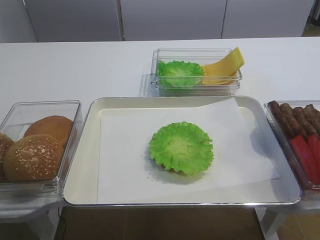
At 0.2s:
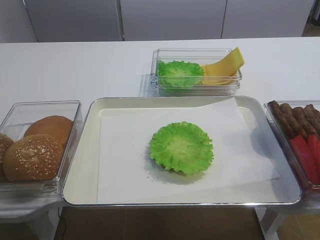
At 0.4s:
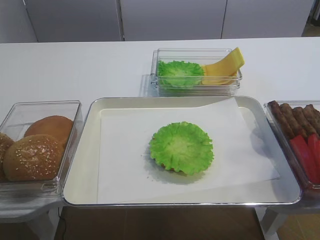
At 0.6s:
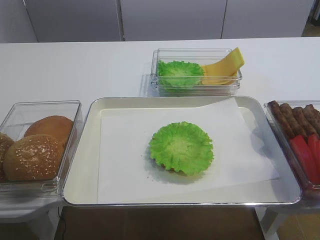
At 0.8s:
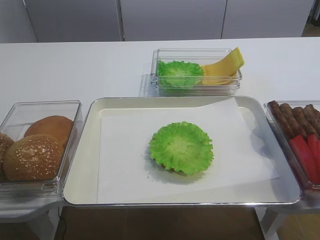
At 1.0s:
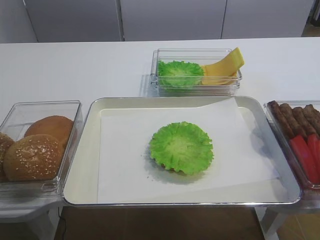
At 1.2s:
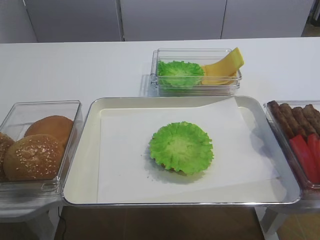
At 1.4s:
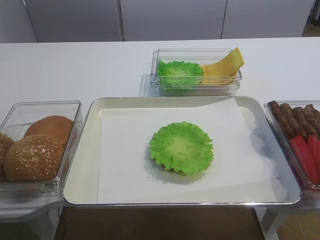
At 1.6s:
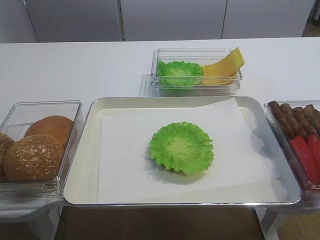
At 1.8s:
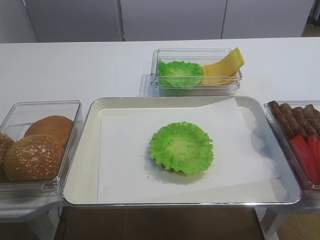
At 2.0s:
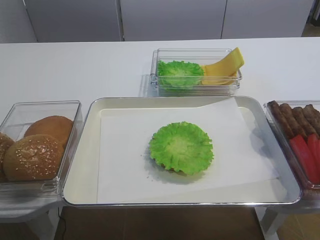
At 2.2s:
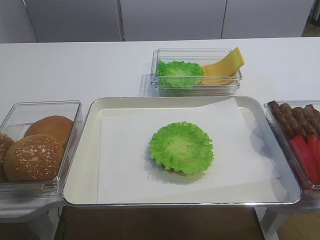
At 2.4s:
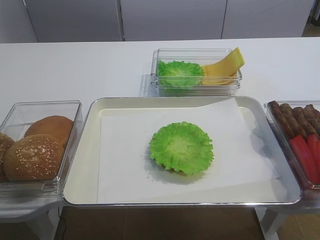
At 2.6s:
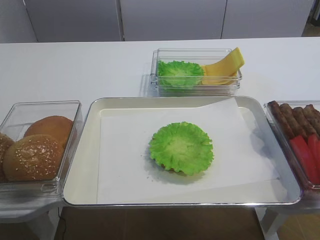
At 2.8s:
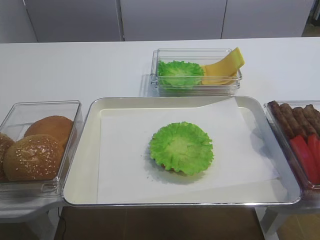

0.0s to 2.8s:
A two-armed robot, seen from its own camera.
1.4s to 2.8s: Both grippers stay about where they are.

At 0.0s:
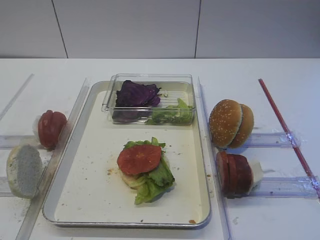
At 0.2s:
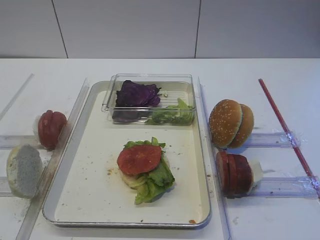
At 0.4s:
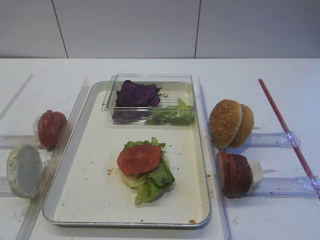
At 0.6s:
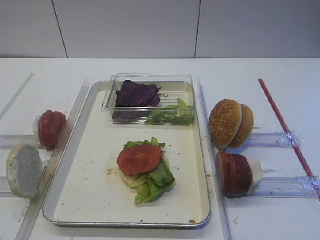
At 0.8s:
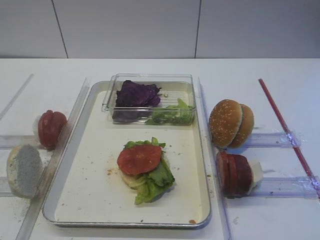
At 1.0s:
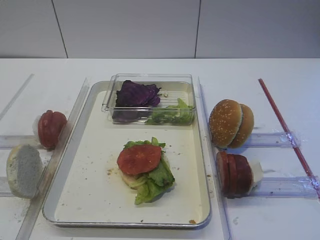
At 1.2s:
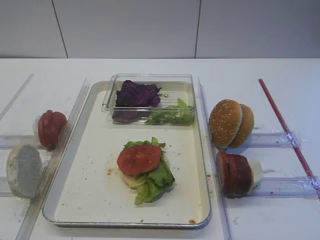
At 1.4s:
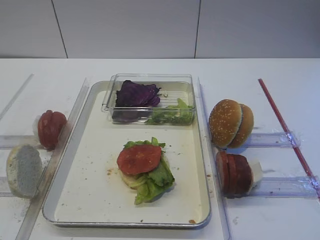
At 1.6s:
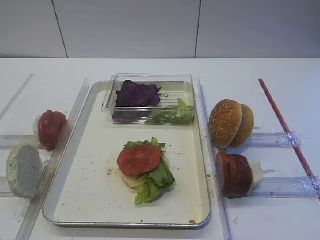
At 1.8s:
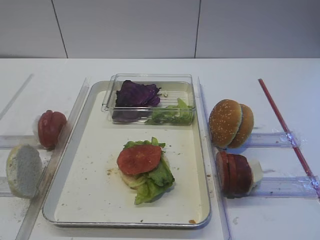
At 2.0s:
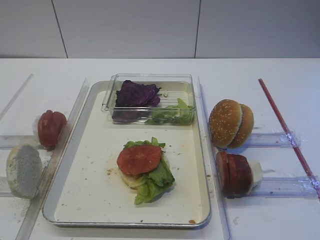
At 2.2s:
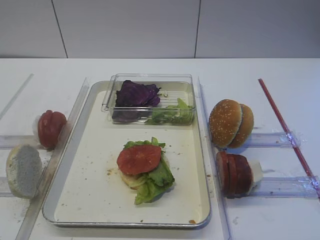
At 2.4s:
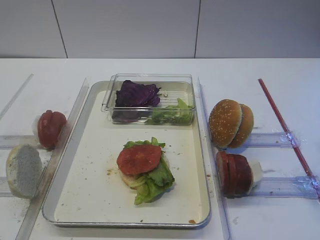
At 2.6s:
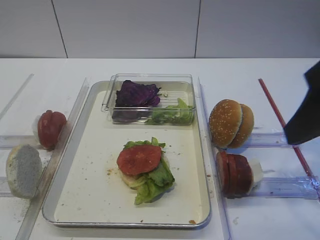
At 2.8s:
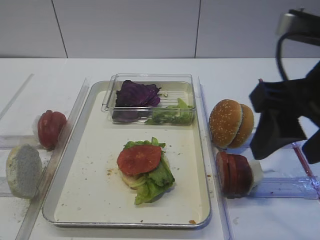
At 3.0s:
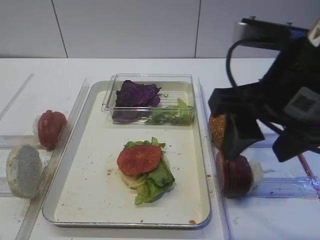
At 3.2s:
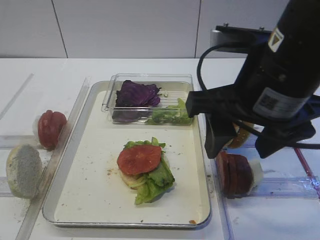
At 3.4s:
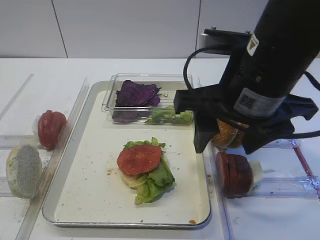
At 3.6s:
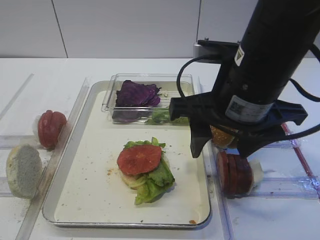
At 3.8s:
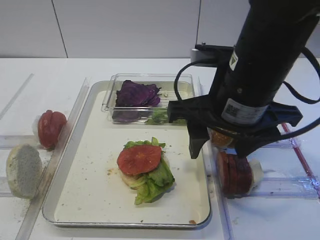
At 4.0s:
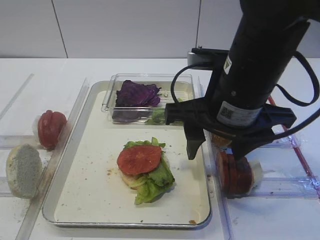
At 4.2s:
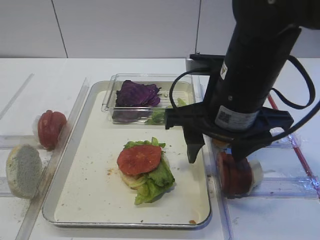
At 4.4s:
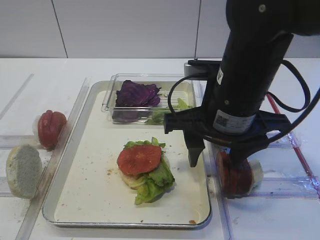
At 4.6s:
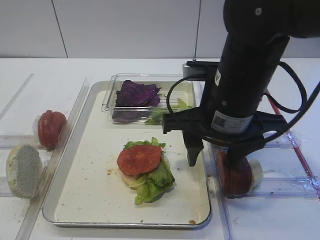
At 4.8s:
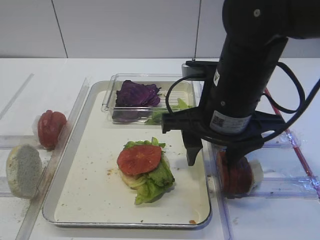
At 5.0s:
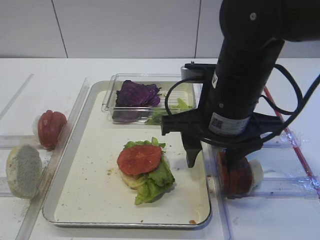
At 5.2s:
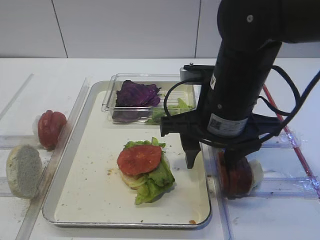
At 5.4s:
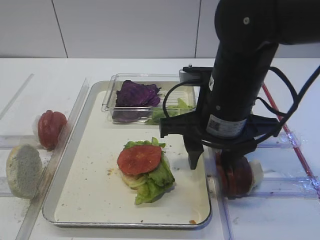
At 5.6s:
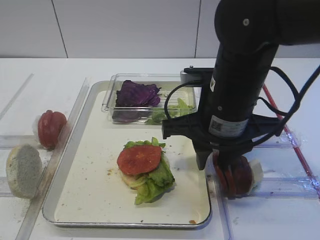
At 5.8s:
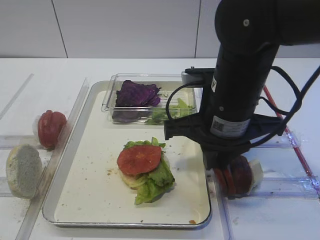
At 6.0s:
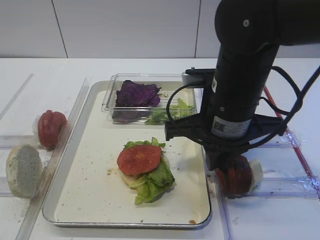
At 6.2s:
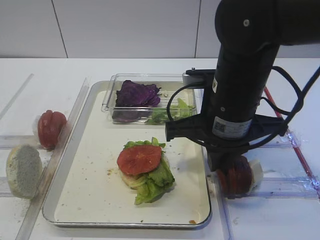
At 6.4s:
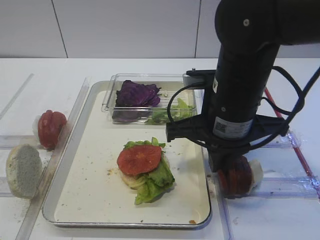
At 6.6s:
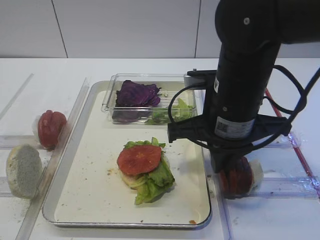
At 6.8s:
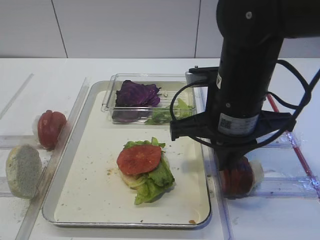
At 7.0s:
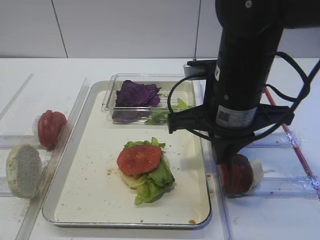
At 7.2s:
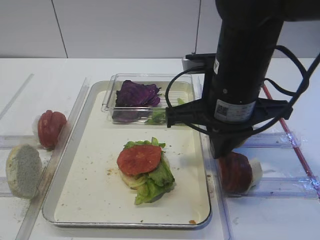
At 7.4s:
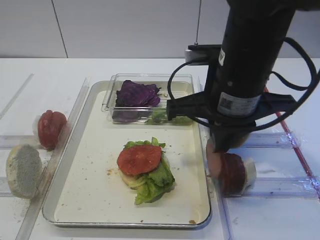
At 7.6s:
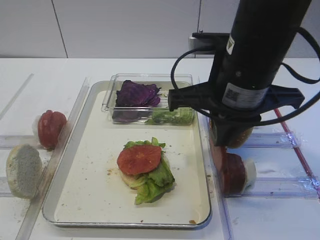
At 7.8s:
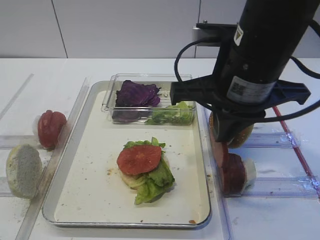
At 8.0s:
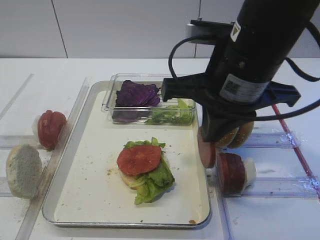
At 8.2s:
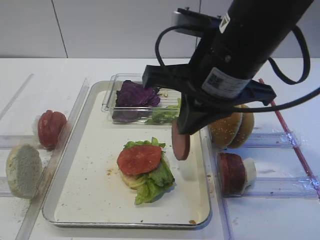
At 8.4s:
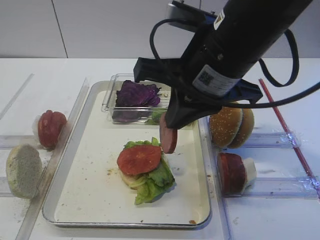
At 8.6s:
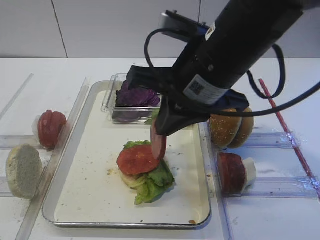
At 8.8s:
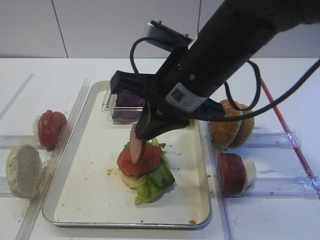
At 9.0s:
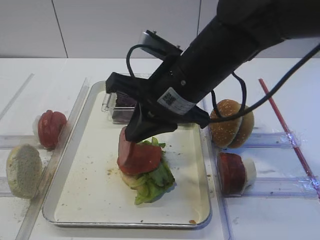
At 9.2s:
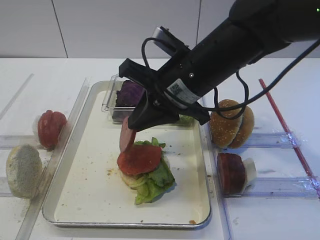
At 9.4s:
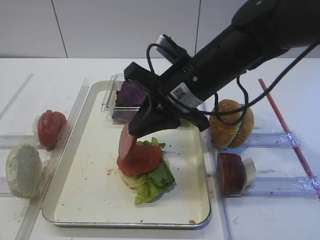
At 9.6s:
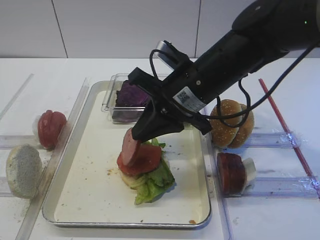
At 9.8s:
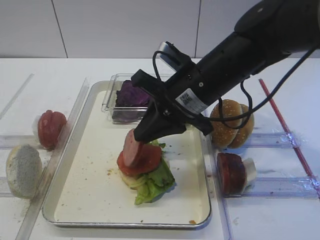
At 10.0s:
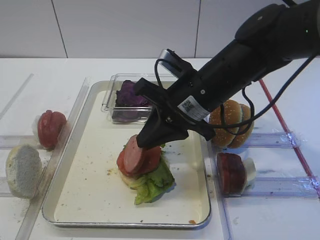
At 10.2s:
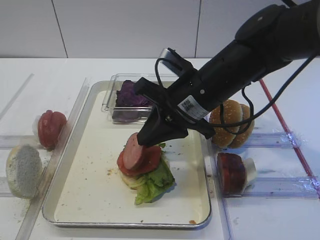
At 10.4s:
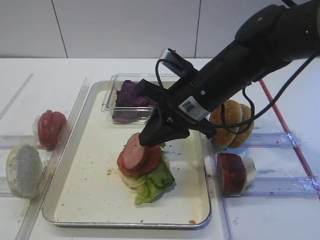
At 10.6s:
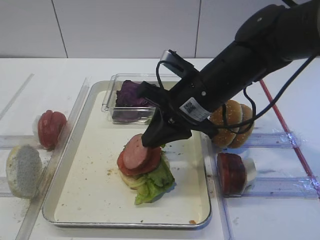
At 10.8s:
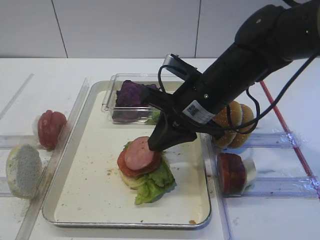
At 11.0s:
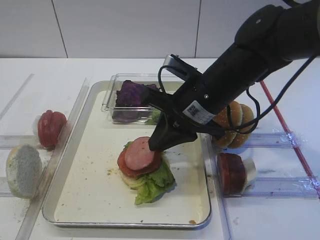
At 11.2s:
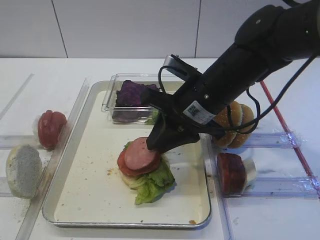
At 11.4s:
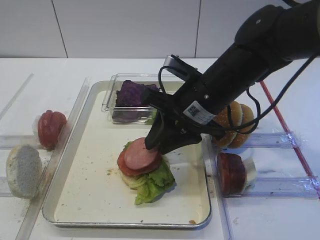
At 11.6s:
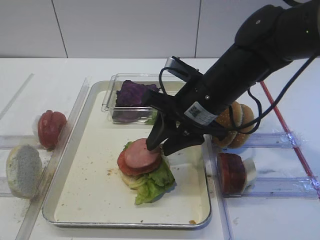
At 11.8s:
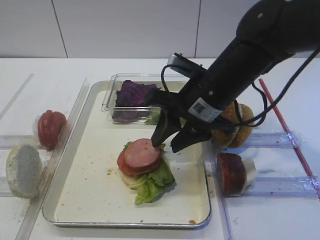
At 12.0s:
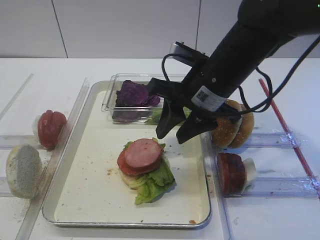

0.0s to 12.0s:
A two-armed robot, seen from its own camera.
Step, 0.0s to 7.4s: Pick up the cutlet with the right gripper.
Step, 7.6s to 11.8s: Place the cutlet on the tomato slice with the right gripper.
1.6s to 3.0s: The right gripper is displaced forward and to the left by about 20 cm.
3.0s to 4.4s: The right gripper heads downward, forward and to the left, covering some 10 cm.
4.4s to 6.0s: The right gripper closes up.
6.0s to 7.6s: The right gripper travels upward by about 5 cm.
7.6s to 9.0s: The right gripper moves to the left, approximately 5 cm.
9.0s to 10.4s: The right gripper ends up approximately 5 cm from where it was.
10.4s to 12.0s: The right gripper opens.

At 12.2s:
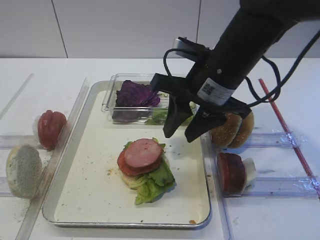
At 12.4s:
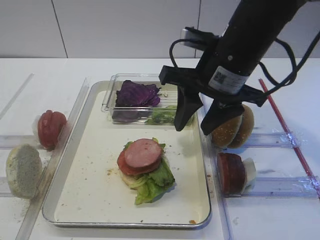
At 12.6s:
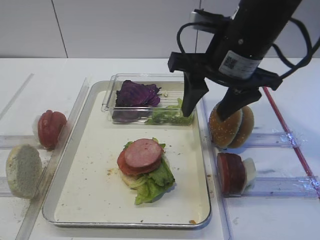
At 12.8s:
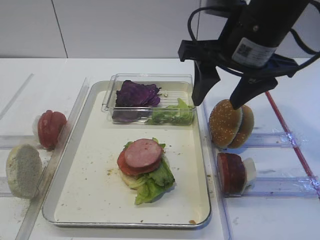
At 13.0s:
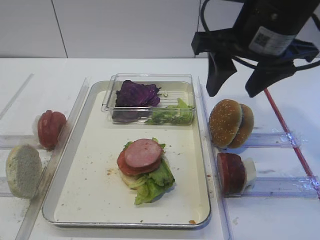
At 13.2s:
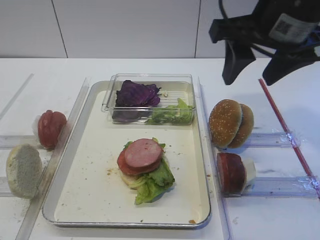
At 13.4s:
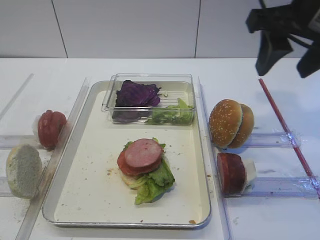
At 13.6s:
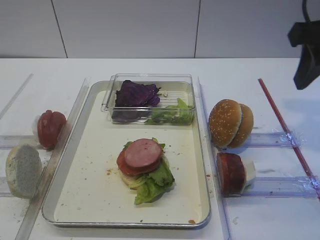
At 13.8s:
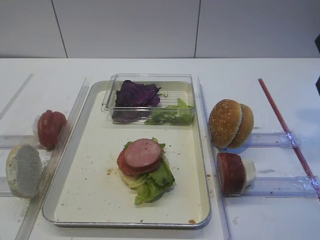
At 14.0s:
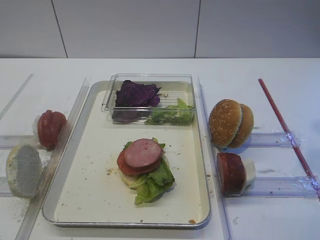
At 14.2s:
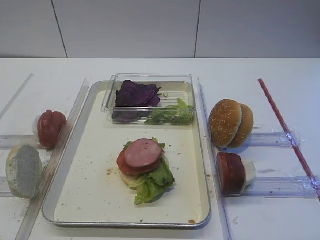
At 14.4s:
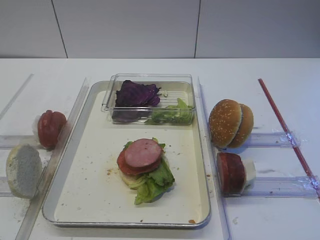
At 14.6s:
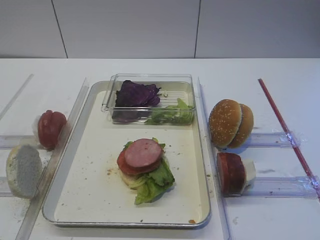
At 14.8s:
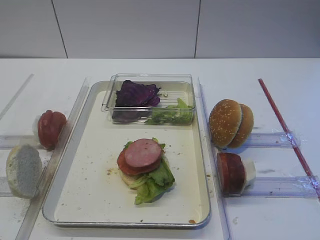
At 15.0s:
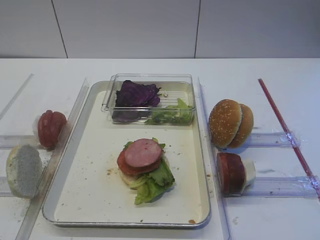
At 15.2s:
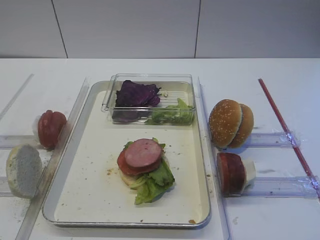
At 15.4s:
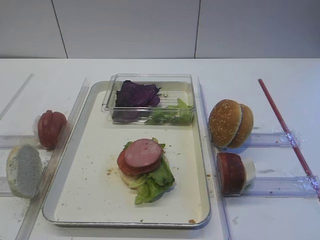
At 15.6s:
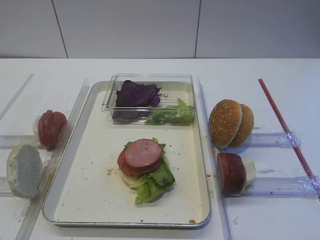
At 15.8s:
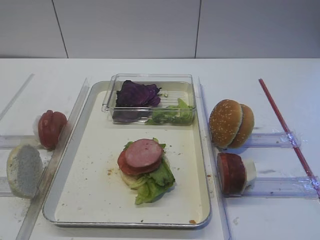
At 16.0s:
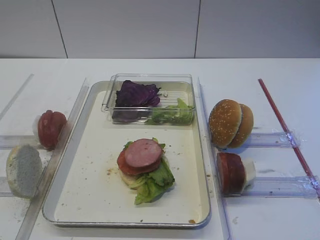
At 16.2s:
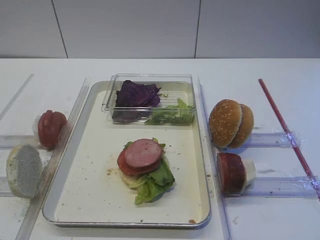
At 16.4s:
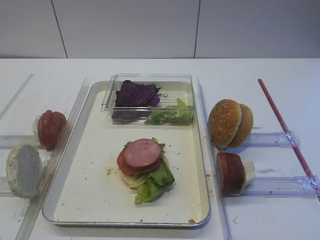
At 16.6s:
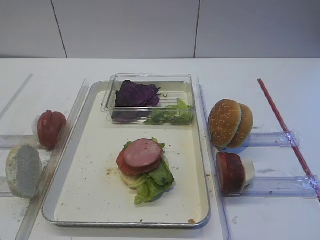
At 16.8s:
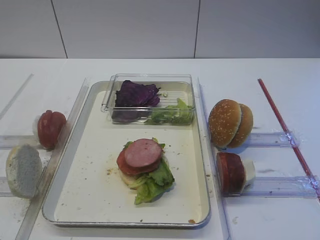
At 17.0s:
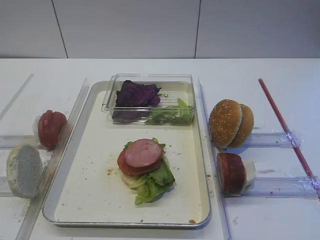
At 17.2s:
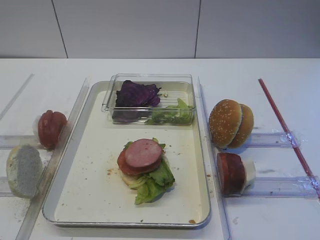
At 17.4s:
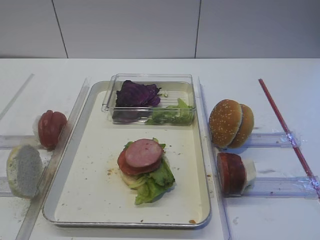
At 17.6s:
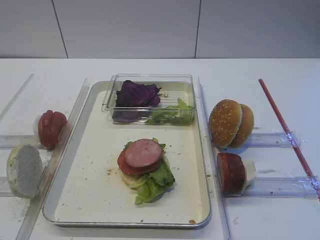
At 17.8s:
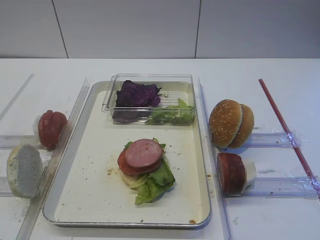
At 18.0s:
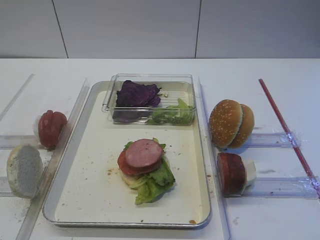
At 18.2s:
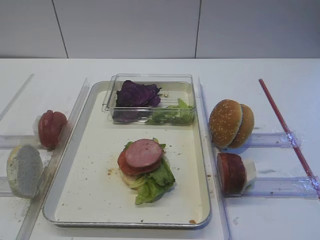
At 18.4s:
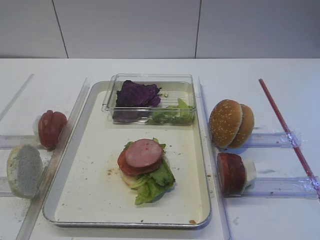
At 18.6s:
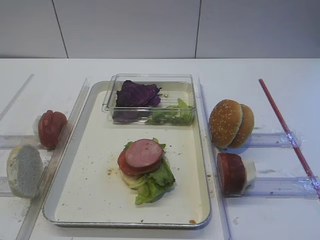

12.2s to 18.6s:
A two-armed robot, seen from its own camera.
12.2s to 13.8s: The right gripper is displaced to the right, upward and backward by approximately 20 cm.
17.0s to 18.6s: Neither gripper changes place.

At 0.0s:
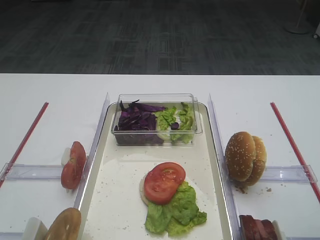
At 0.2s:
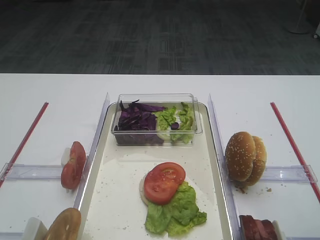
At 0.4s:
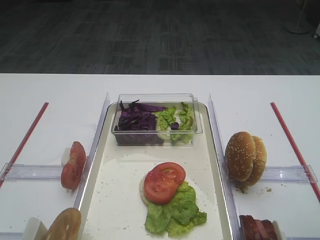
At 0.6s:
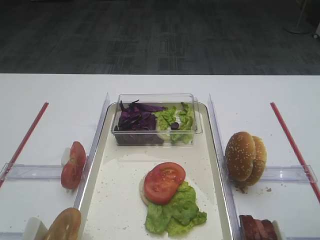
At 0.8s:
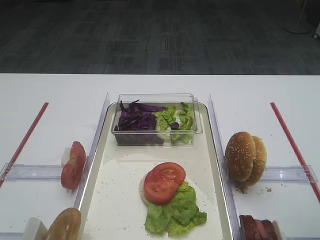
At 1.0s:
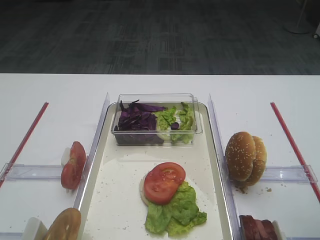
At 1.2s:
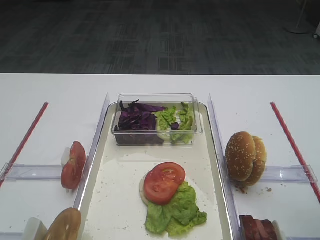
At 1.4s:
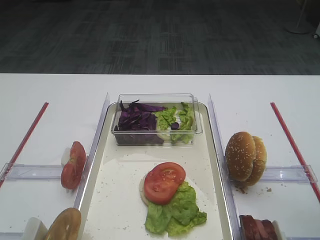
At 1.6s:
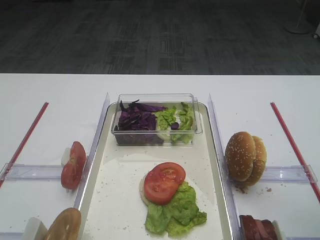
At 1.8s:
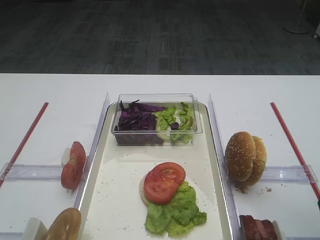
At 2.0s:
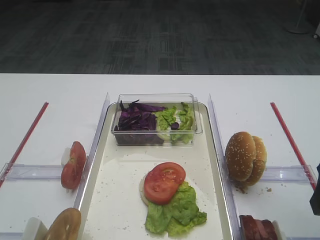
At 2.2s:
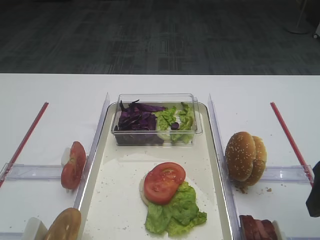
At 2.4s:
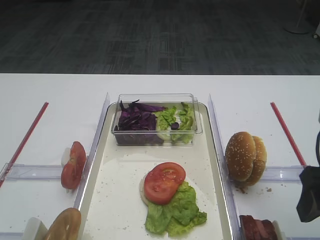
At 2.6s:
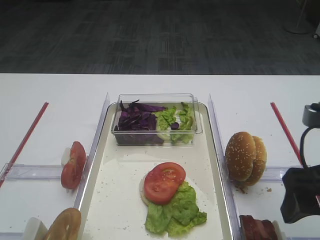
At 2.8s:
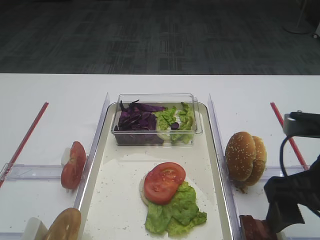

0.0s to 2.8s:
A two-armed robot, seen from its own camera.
1.4s to 2.8s: The right gripper moves to the left, roughly 5 cm.
